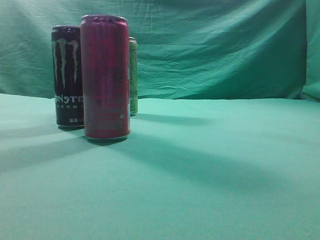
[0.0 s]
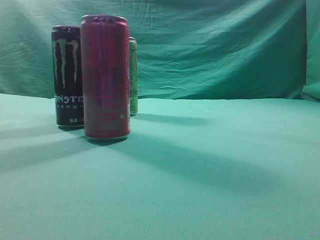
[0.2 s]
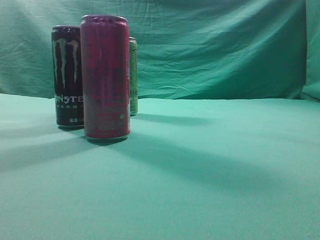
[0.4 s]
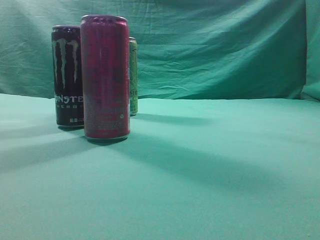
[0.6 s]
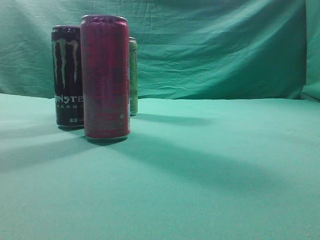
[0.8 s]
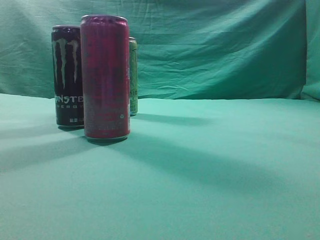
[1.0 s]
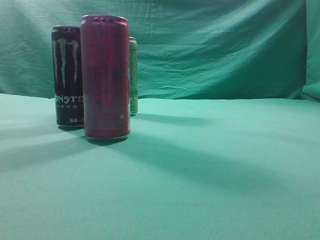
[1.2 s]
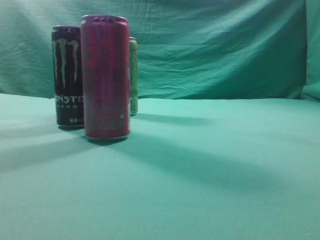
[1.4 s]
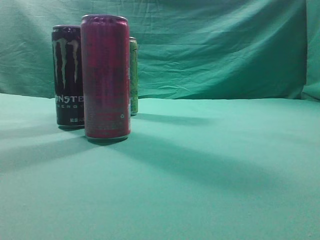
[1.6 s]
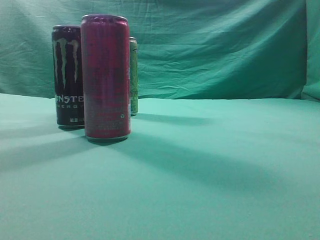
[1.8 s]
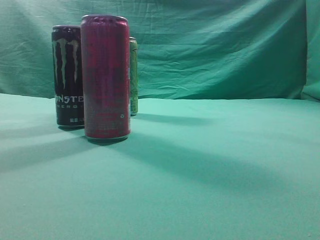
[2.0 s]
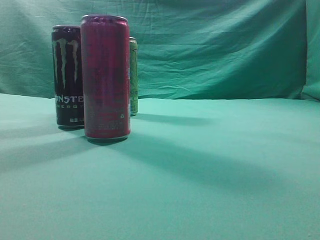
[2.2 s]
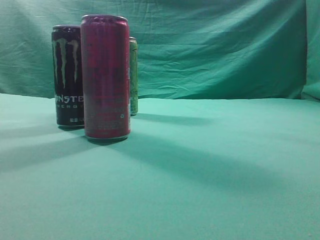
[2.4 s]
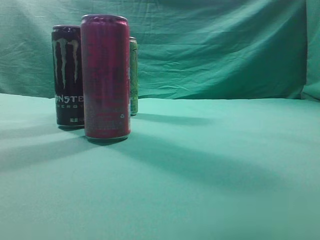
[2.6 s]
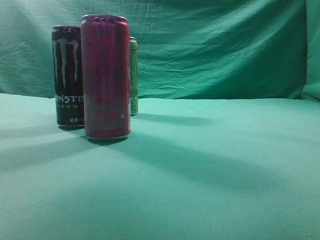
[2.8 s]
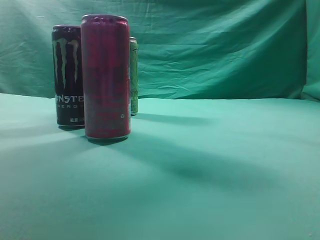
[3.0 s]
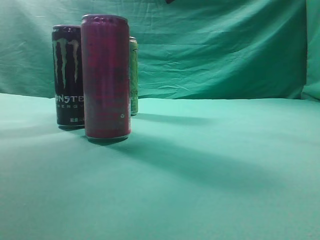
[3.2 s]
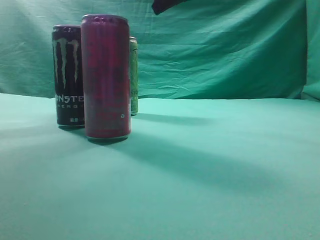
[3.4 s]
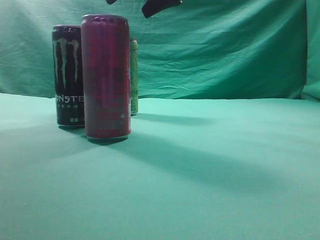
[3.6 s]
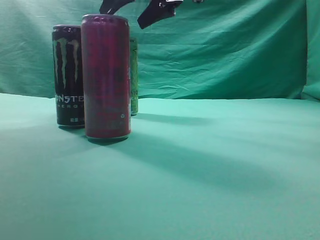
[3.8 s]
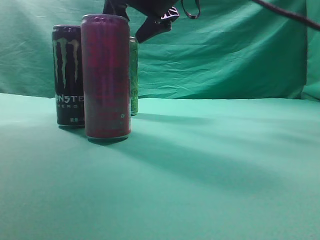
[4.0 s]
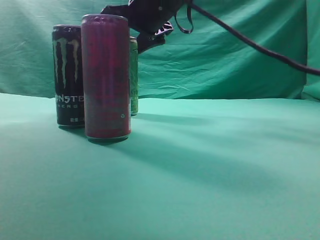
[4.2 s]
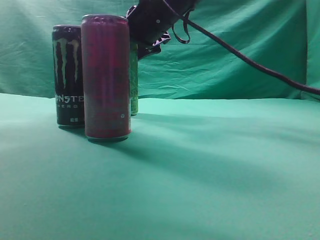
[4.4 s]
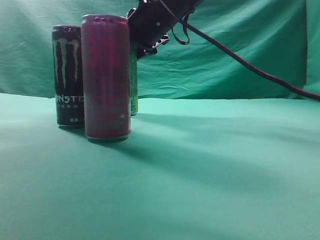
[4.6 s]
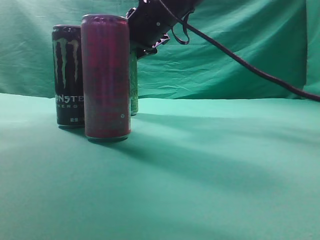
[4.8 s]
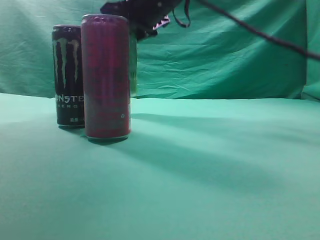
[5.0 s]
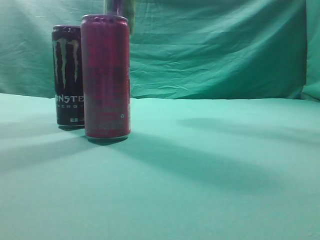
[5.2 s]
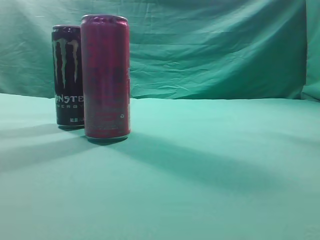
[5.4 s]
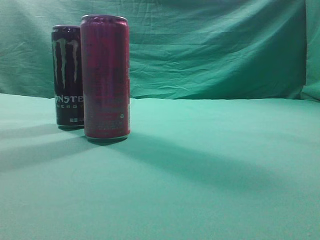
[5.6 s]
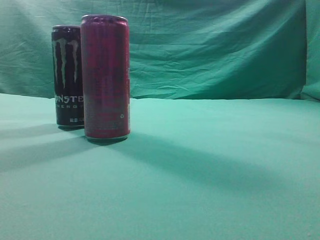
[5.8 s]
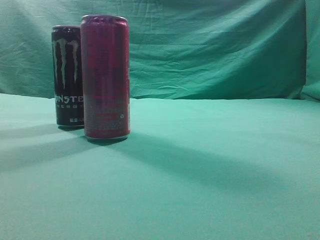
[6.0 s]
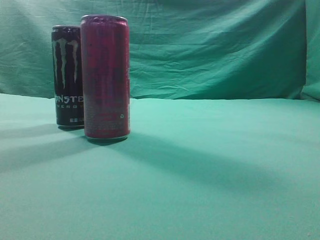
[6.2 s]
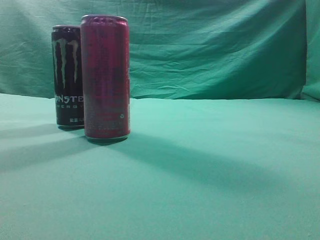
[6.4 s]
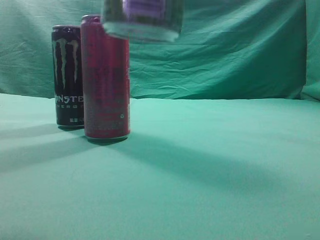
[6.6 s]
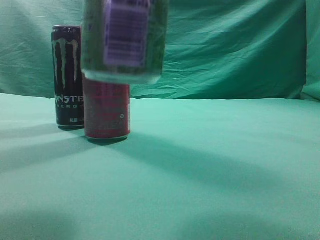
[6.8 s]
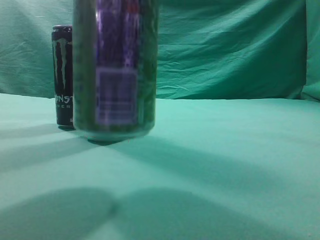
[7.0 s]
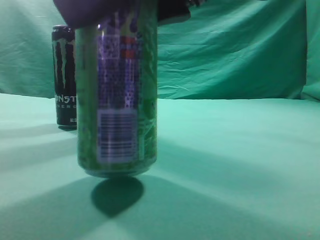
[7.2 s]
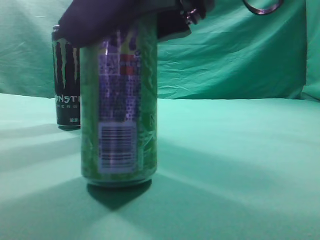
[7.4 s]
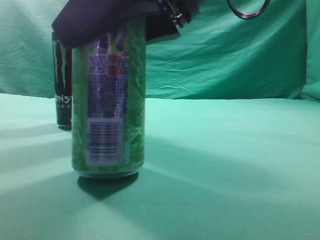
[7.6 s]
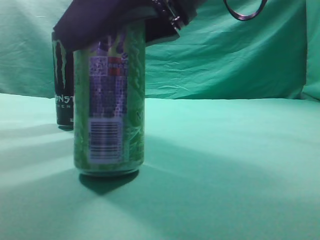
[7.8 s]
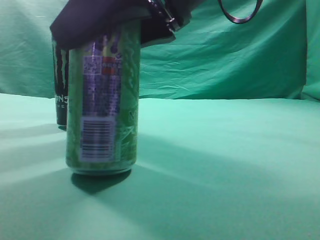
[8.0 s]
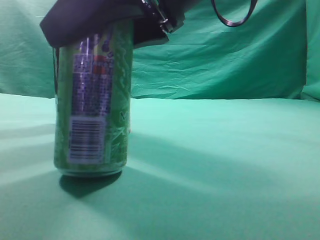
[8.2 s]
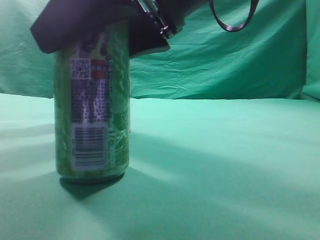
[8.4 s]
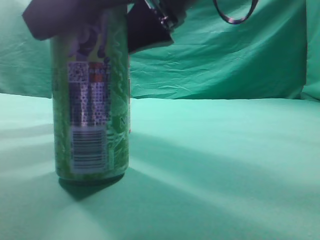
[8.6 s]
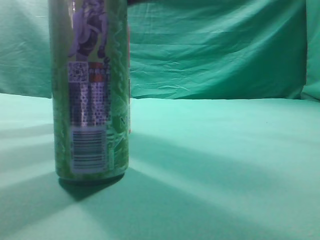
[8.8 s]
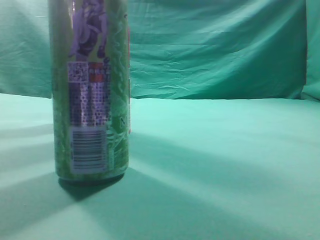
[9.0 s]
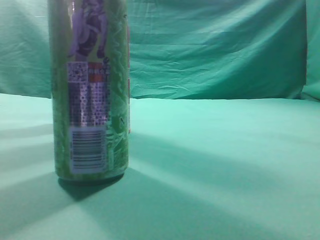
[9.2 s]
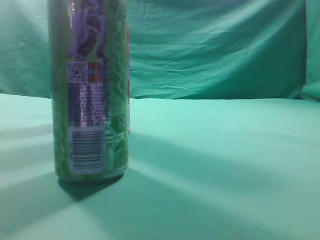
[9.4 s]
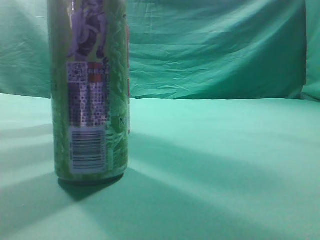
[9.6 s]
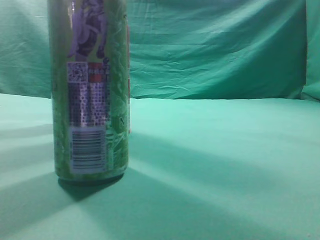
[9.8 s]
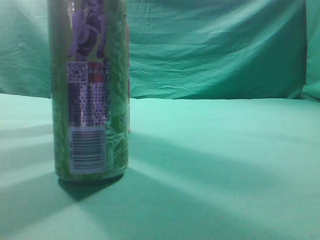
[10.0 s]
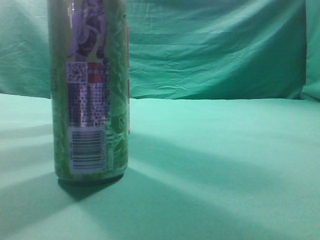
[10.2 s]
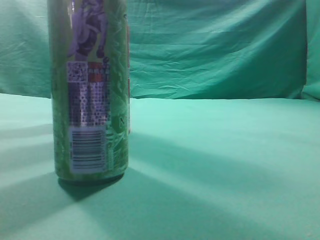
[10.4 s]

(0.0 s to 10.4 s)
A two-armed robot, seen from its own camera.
Task of the whole recording: move one drink among three beverages.
Step, 0.0 s - 5.0 s: Grasp the beverage bottle placed at the back of the desk.
Step, 5.2 s - 9.0 s: Place the beverage bottle to the front of the table.
1.4 s - 3.0 s: The right gripper heads forward, to the left and upward, covering roughly 35 cm.
3.0 s - 4.4 s: The right gripper heads forward, to the left and downward, covering some 20 cm, and opens its fingers.
4.4 s - 6.0 s: The right gripper is displaced upward, backward and to the right by some 30 cm.
6.0 s - 7.4 s: The right gripper moves downward, approximately 20 cm.
7.4 s - 9.0 s: The right gripper shifts approximately 10 cm upward.
